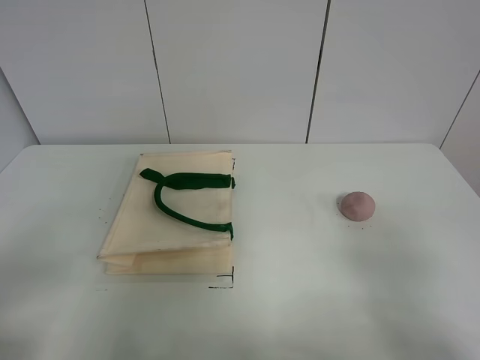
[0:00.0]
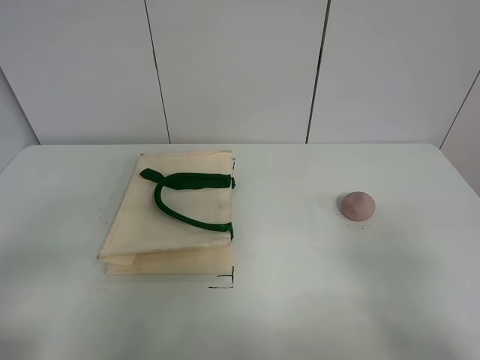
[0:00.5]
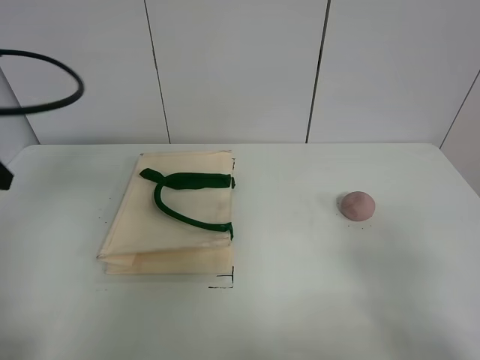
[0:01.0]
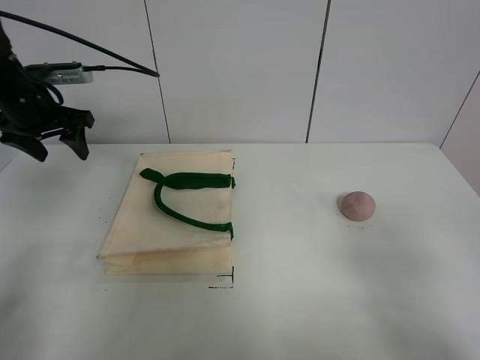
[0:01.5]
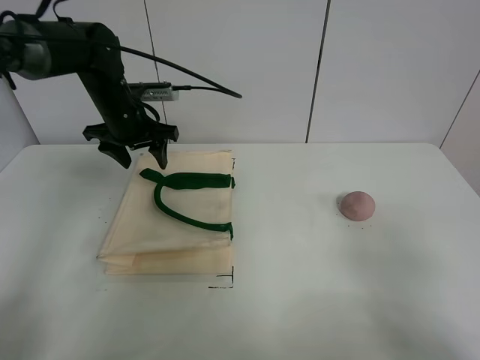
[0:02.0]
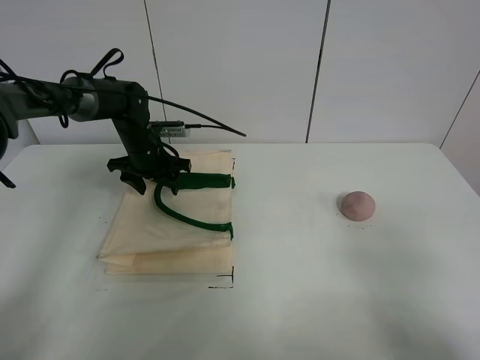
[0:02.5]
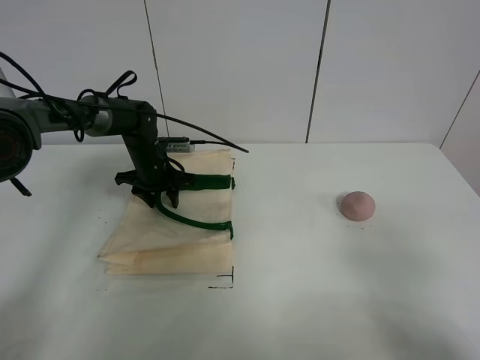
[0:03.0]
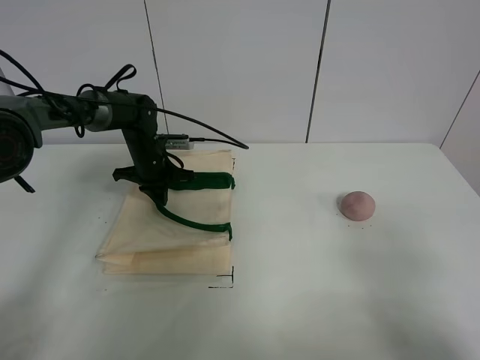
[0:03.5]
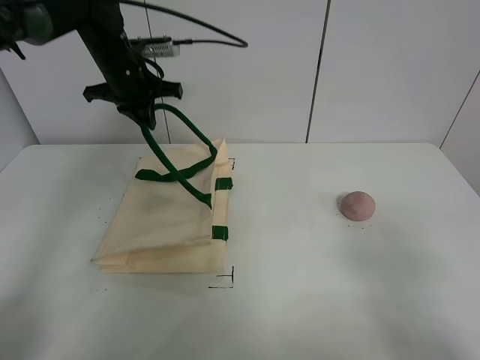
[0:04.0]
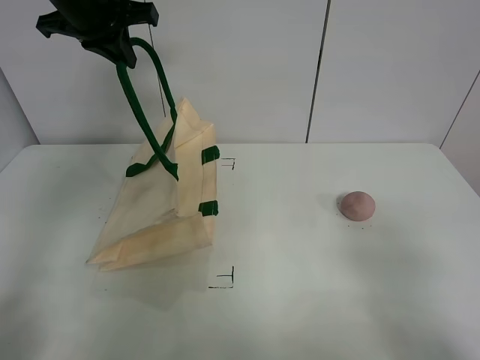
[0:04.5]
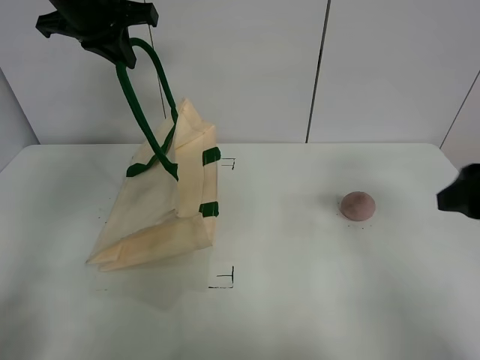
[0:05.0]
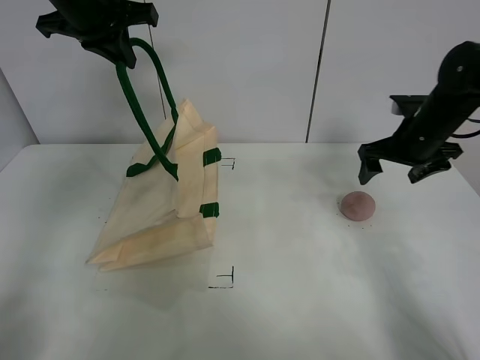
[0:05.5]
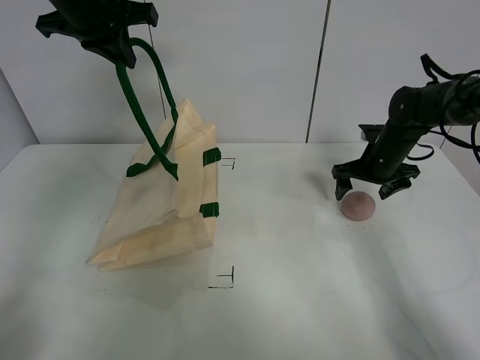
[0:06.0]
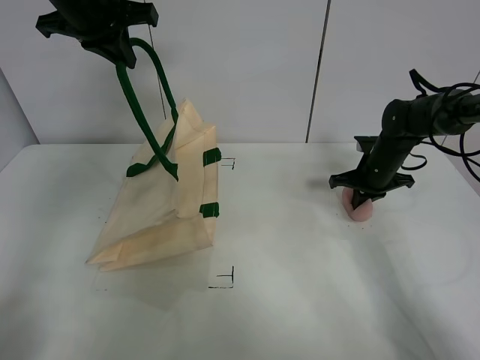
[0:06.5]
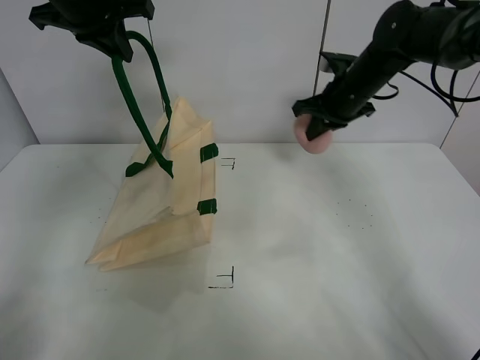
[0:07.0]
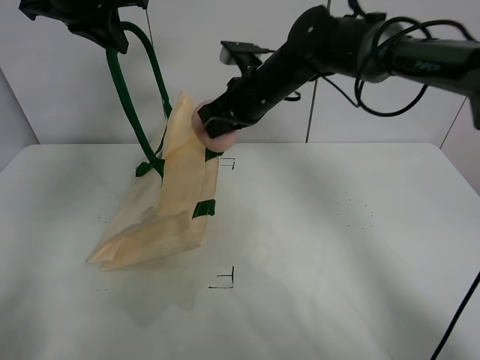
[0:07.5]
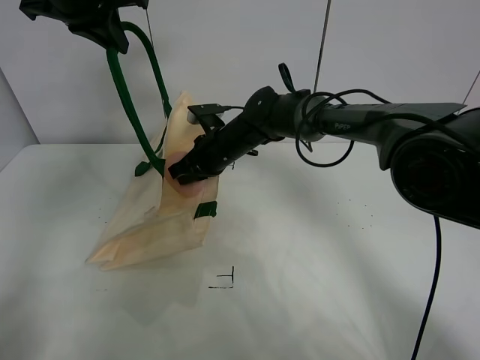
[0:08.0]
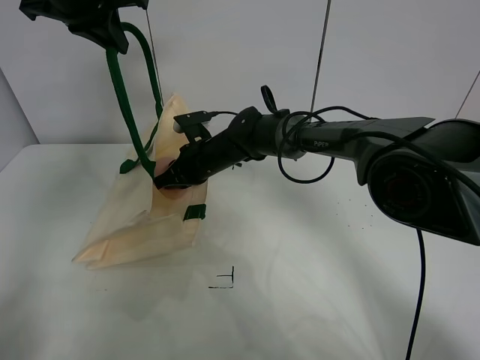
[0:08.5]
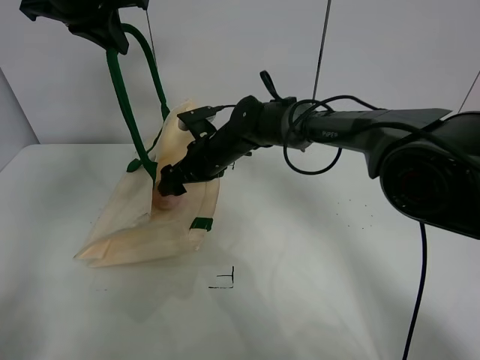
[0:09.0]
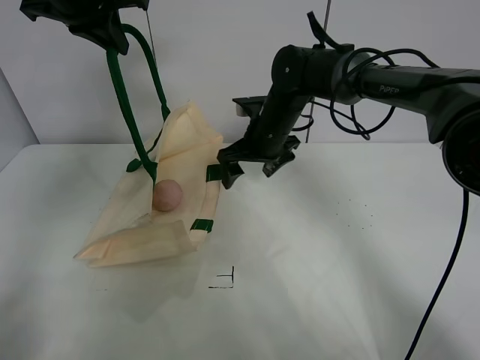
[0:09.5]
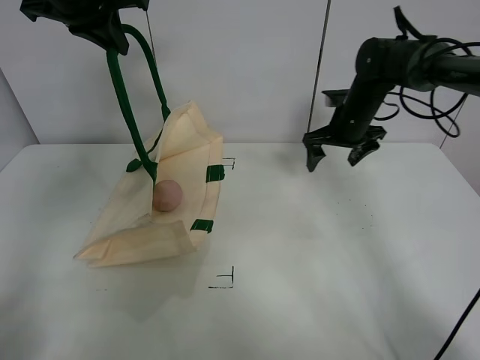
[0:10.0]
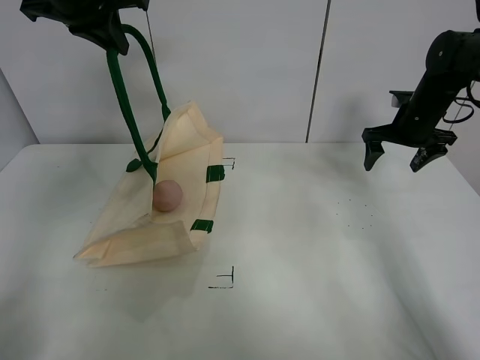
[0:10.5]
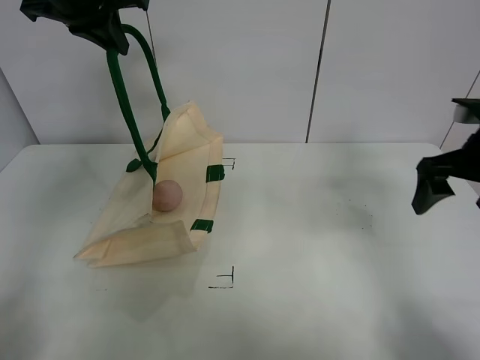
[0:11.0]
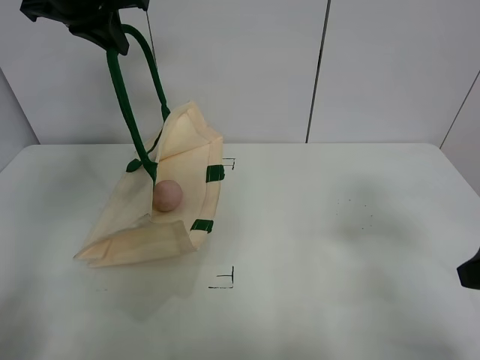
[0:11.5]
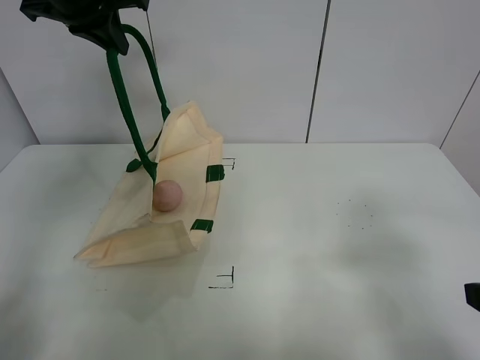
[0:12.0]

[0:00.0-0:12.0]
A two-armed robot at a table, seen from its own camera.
Task of the whole recording: open the white linen bag and put the peach in the bag.
Step, 0:00.0 to 0:04.5: Lift the handbag with left gripper.
Step, 0:05.0 to 0:06.5: Grasp the peach with right gripper.
Step, 0:07.0 to 0:08.5: Place the peach in the handbag with right gripper.
0:02.0 to 0:04.0: The left gripper goes downward and returns, some 15 cm each way, and closes up.
0:04.0 to 0:06.0: The left gripper is displaced upward by about 15 cm; the right gripper goes roughly 40 cm forward.
0:06.0 to 0:08.0: The right gripper shifts about 25 cm to the left, and closes up.
0:08.0 to 0:10.0: The right gripper heads to the right, covering approximately 20 cm, and opens up.
0:10.0 to 0:12.0: The right gripper moves backward, some 40 cm.

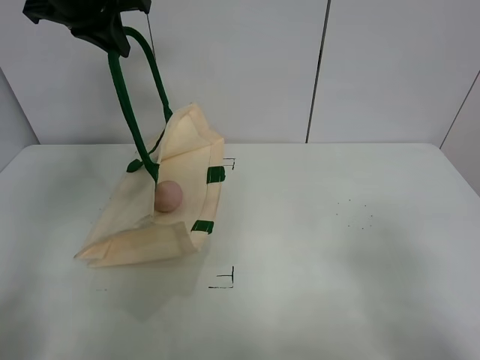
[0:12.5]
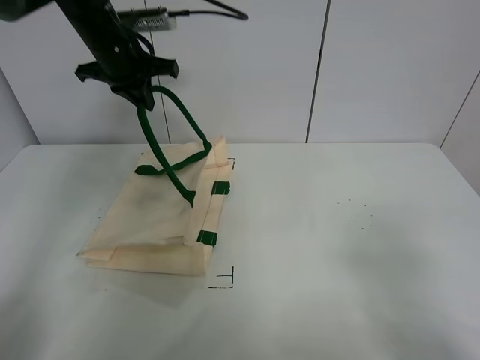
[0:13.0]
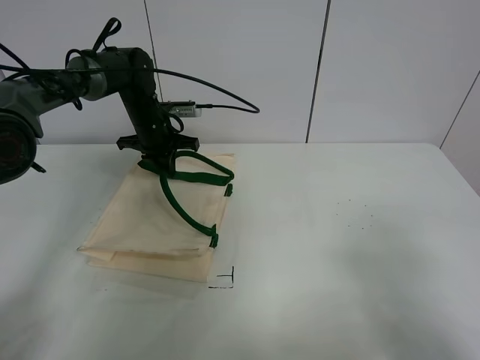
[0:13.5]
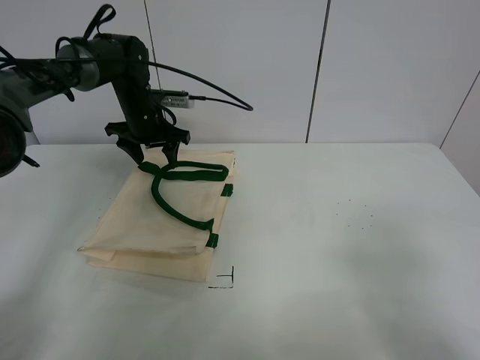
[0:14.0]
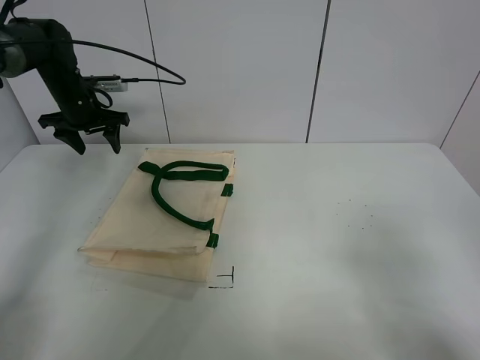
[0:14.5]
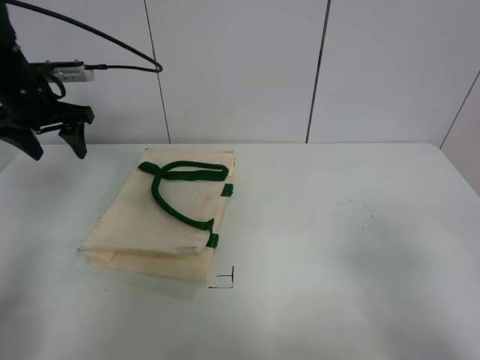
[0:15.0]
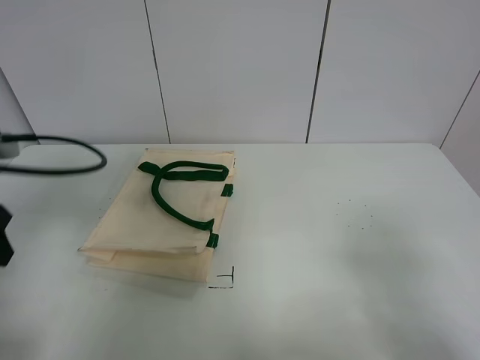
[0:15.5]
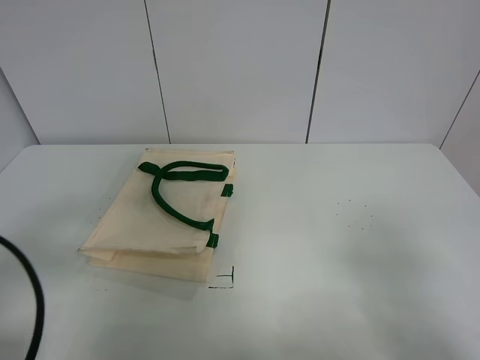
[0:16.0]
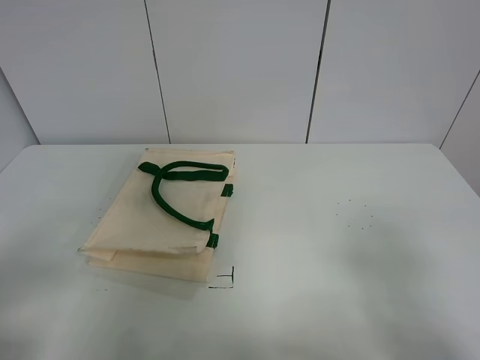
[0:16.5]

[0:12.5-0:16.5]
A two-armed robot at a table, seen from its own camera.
Task of the whole recording: open the white linen bag and put the peach in the bag.
0:12.5 to 0:14.5: The left gripper is displaced downward, forward and to the left by about 25 cm, and opens its fingers.
0:14.5 to 0:16.5: The left gripper travels backward by roughly 50 cm.

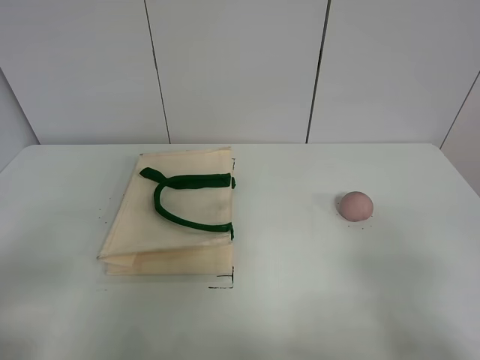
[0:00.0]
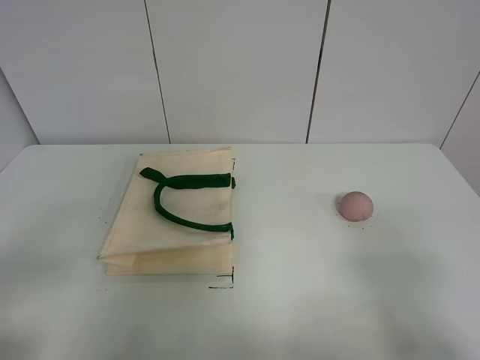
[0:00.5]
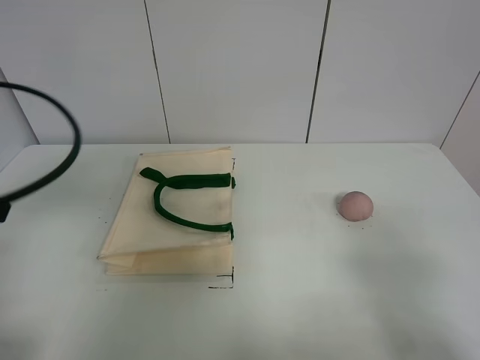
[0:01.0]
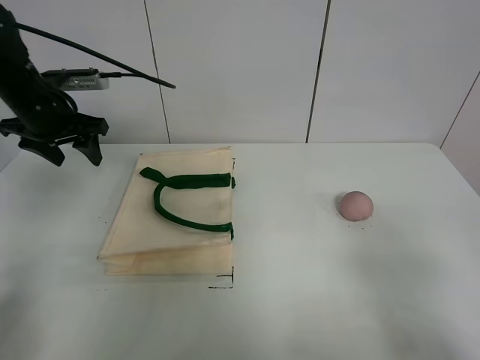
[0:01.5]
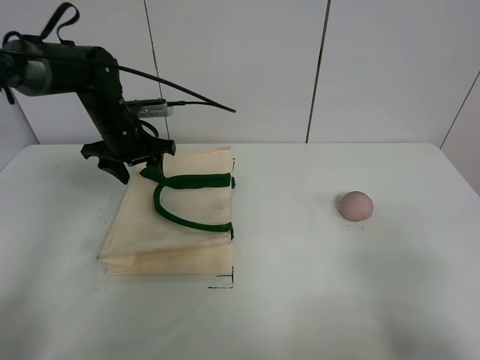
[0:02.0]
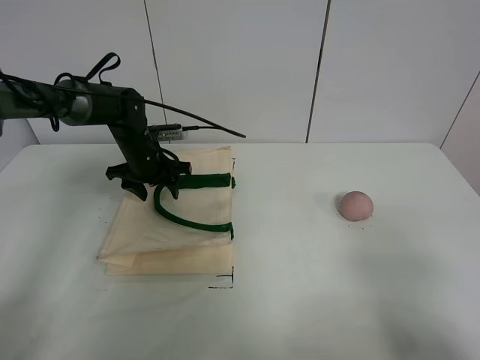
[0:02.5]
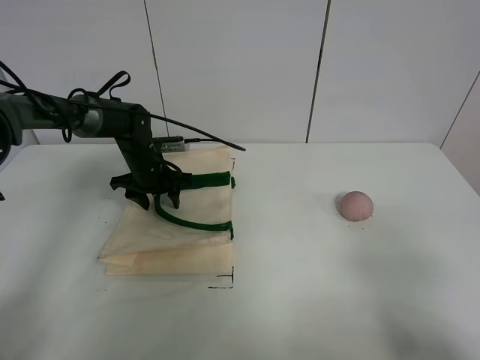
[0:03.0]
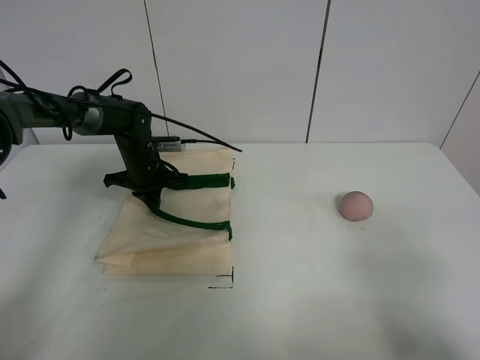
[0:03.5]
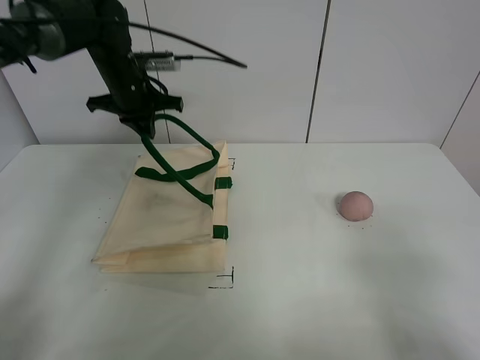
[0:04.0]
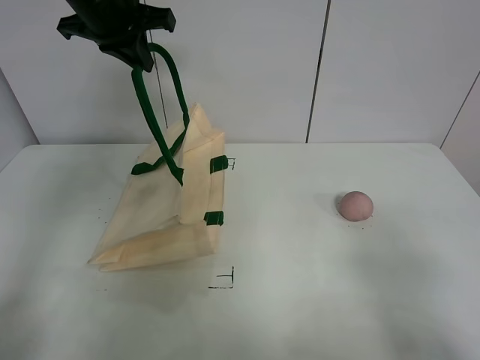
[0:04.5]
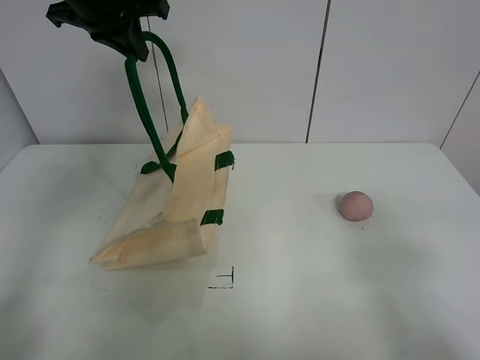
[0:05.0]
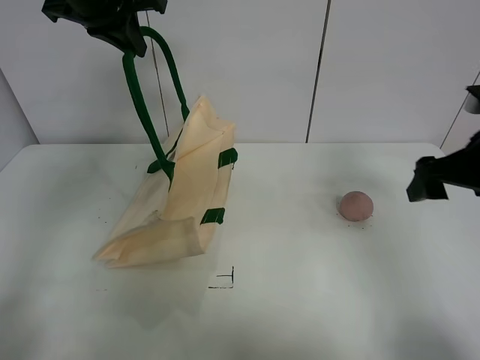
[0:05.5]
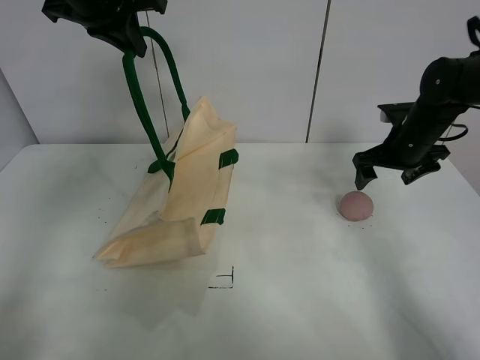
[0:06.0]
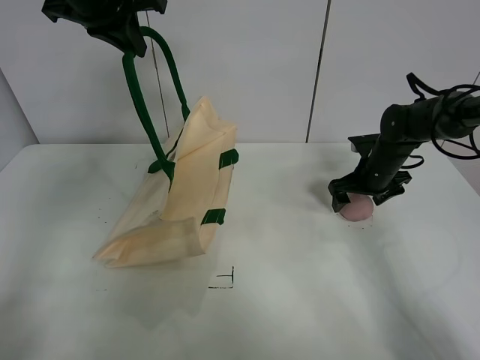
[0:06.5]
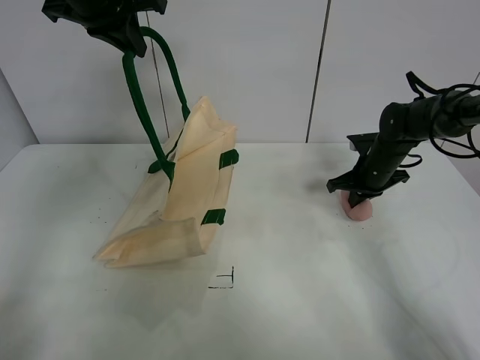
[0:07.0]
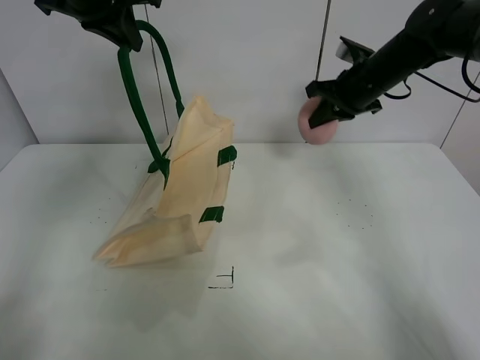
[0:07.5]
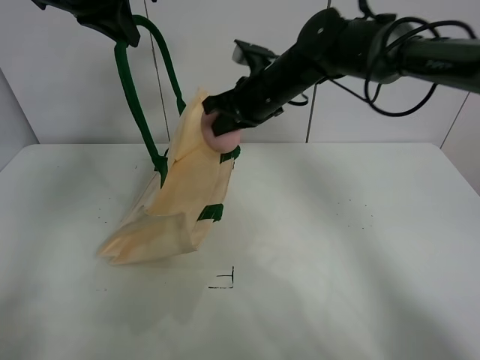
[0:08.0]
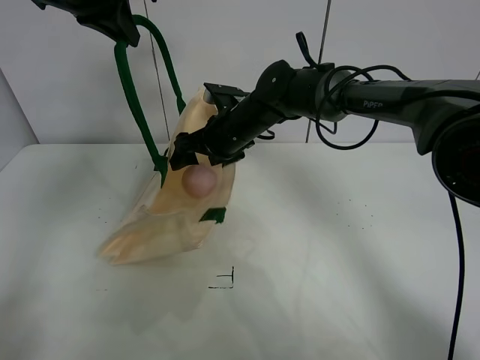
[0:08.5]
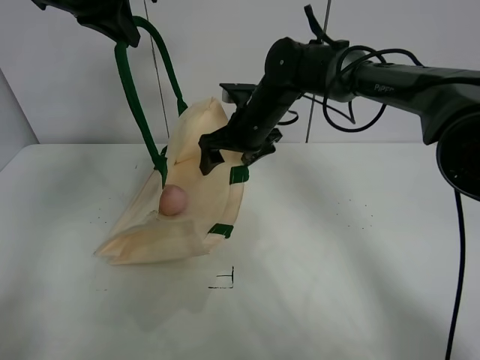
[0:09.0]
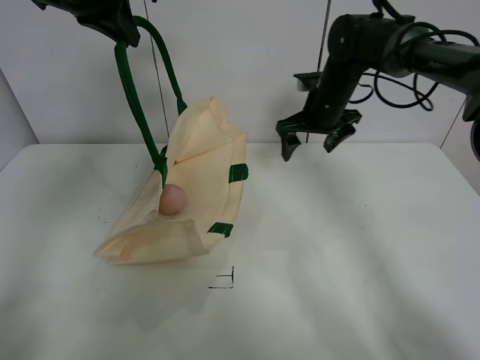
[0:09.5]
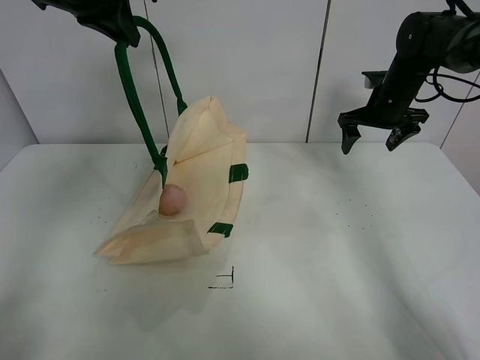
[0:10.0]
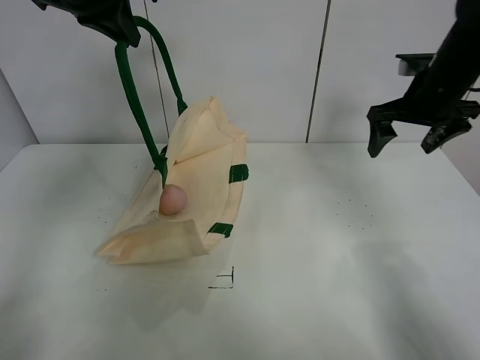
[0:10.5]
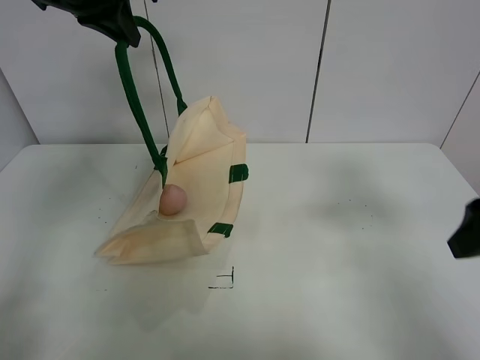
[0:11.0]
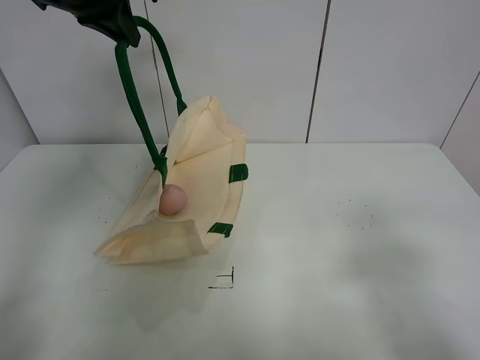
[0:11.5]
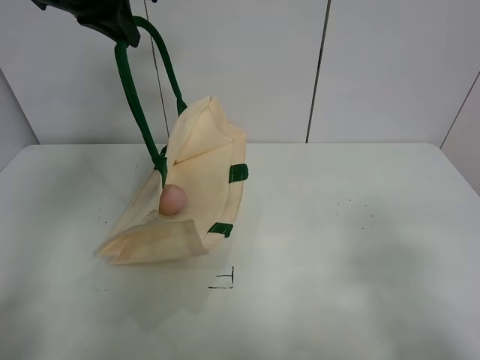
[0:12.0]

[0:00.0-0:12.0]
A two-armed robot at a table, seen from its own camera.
Task of the whole recording: open the white linen bag and put the peach in the bag.
Step, 0:00.0 to 0:04.5: Lift the handbag with left gripper.
Step, 0:05.0 to 0:06.5: Grasp the peach with right gripper.
Step, 0:07.0 to 0:08.5: Place the peach in the handbag with right gripper.
0:02.0 to 0:04.0: The left gripper moves about 10 cm downward and comes back, and closes its fingers.
0:04.0 to 0:06.0: The left gripper goes some 20 cm upward and backward; the right gripper travels forward by some 40 cm.
0:06.0 to 0:08.0: The right gripper travels to the left by some 20 cm, and closes its fingers.
0:08.0 to 0:10.0: The right gripper shifts roughly 20 cm to the right, and opens.
0:10.0 to 0:12.0: The right gripper shifts about 40 cm backward.
